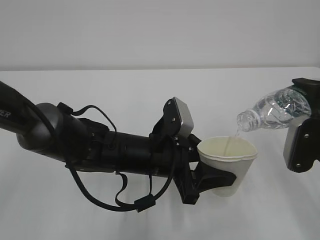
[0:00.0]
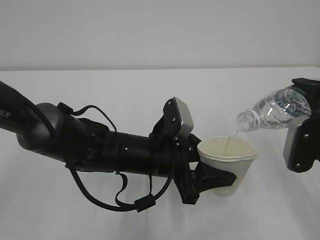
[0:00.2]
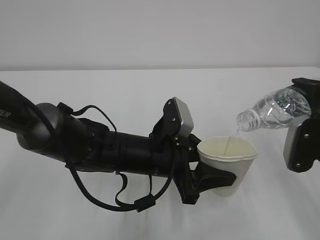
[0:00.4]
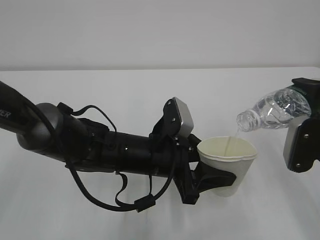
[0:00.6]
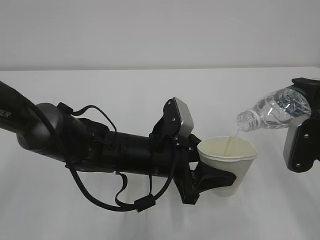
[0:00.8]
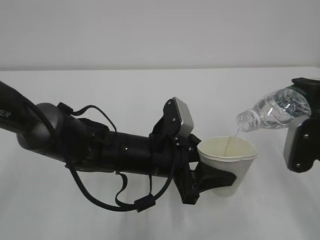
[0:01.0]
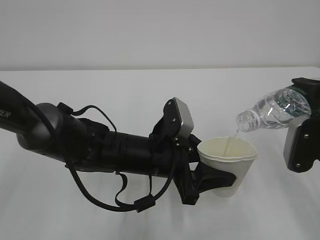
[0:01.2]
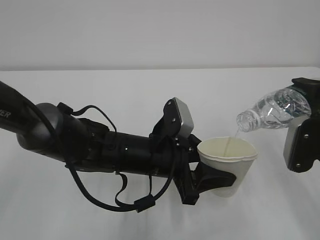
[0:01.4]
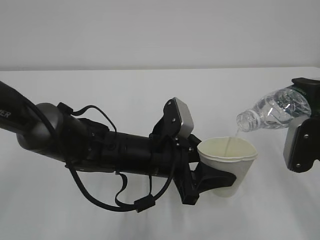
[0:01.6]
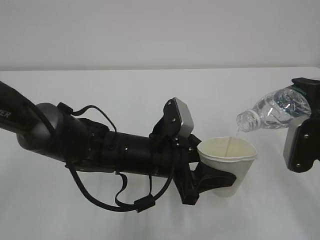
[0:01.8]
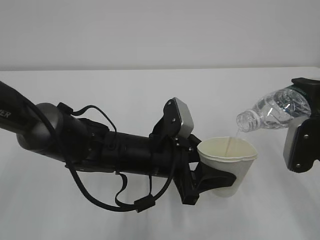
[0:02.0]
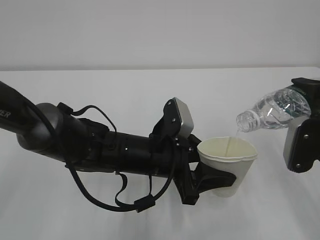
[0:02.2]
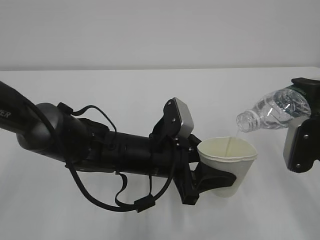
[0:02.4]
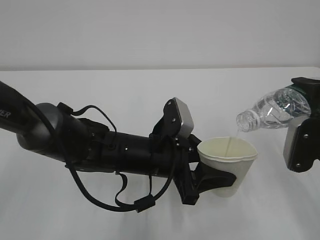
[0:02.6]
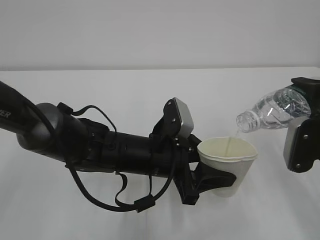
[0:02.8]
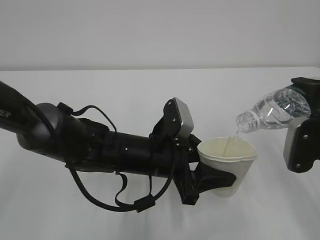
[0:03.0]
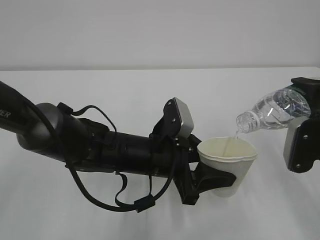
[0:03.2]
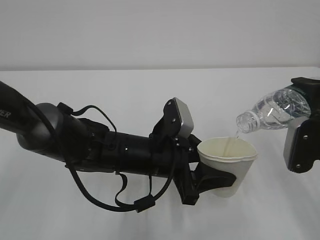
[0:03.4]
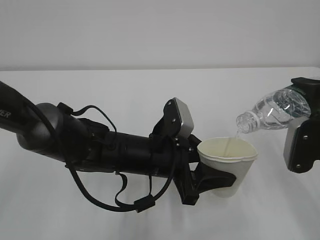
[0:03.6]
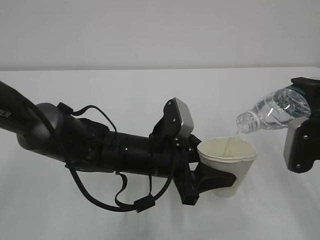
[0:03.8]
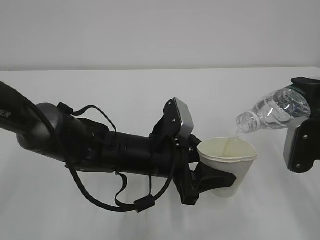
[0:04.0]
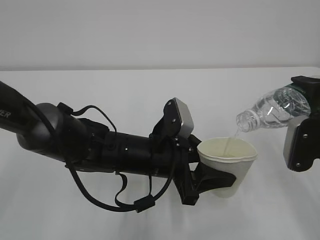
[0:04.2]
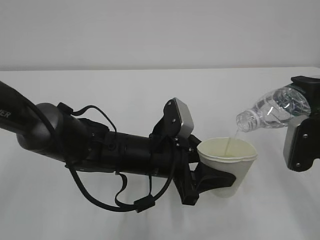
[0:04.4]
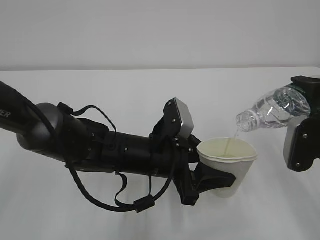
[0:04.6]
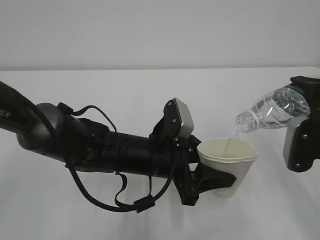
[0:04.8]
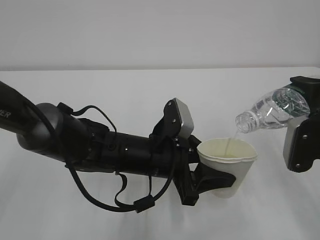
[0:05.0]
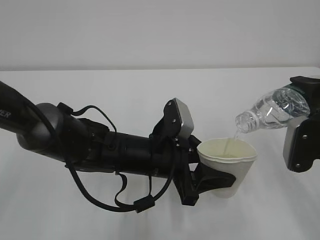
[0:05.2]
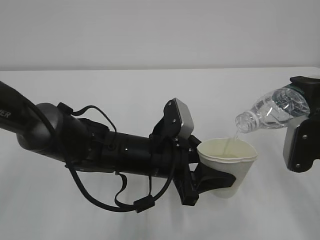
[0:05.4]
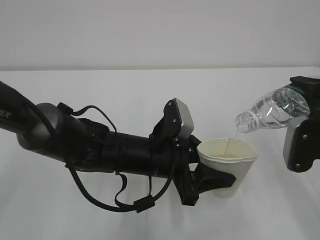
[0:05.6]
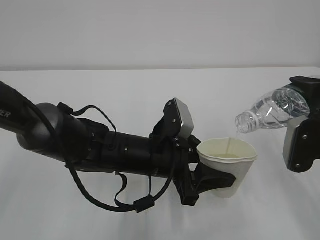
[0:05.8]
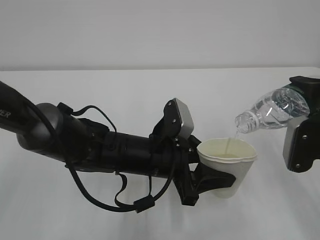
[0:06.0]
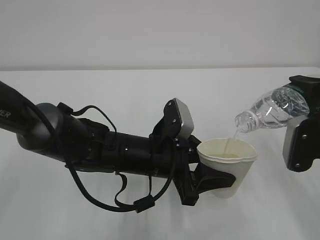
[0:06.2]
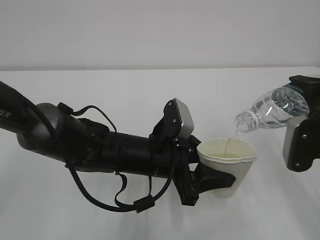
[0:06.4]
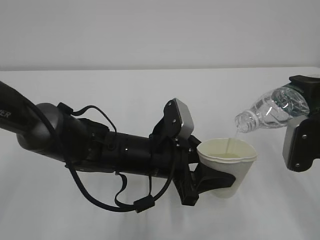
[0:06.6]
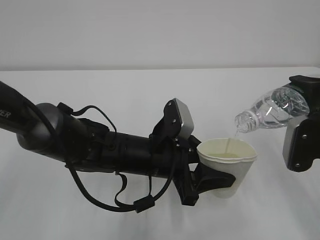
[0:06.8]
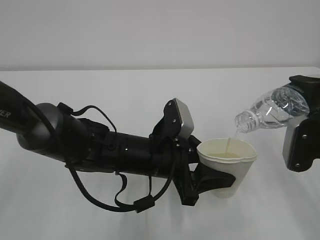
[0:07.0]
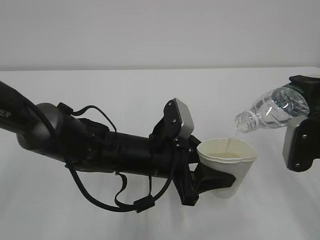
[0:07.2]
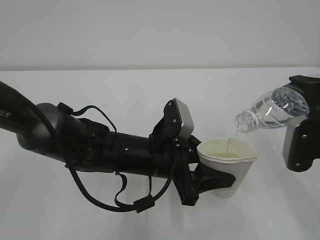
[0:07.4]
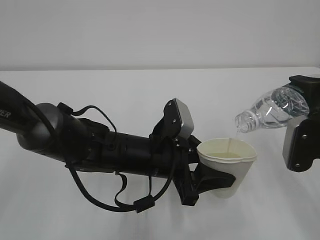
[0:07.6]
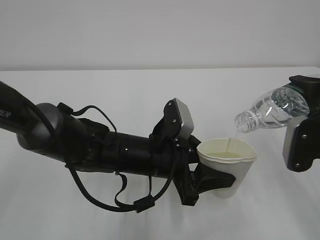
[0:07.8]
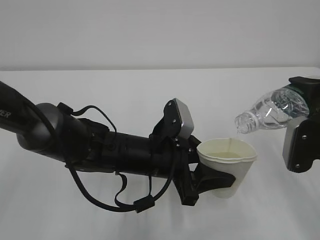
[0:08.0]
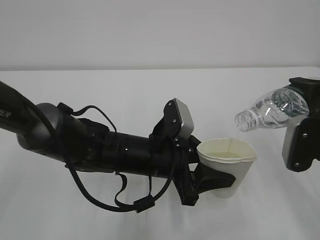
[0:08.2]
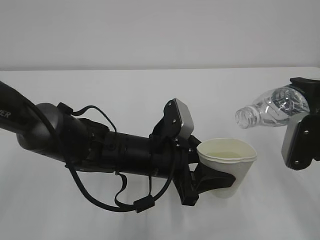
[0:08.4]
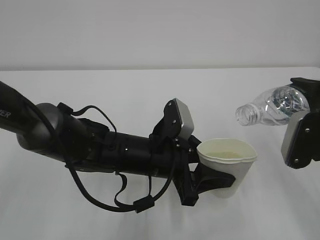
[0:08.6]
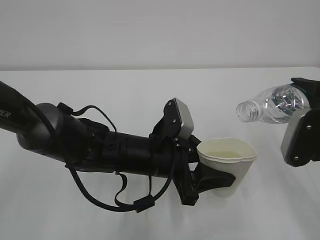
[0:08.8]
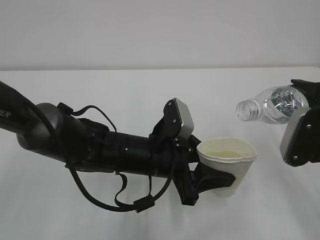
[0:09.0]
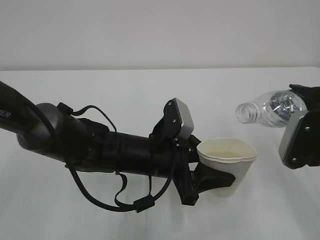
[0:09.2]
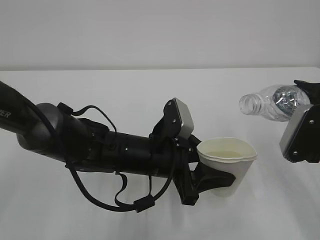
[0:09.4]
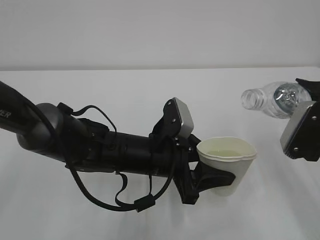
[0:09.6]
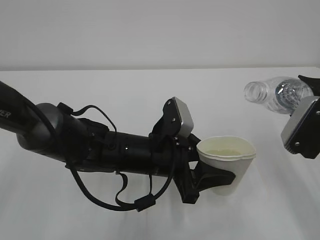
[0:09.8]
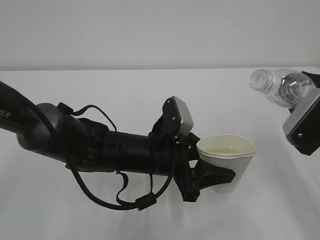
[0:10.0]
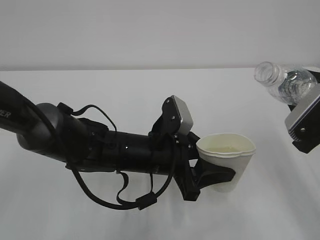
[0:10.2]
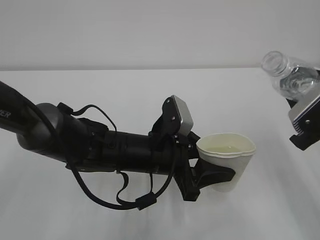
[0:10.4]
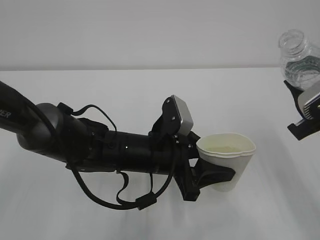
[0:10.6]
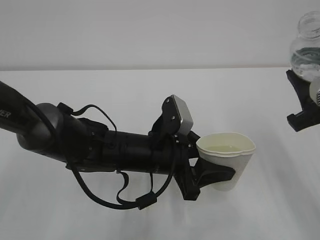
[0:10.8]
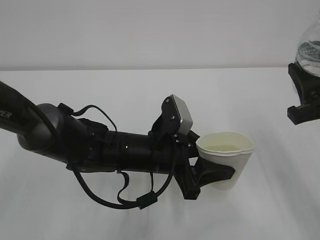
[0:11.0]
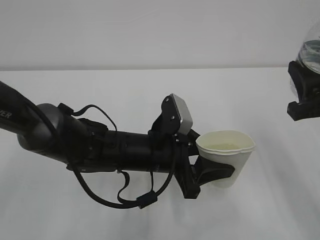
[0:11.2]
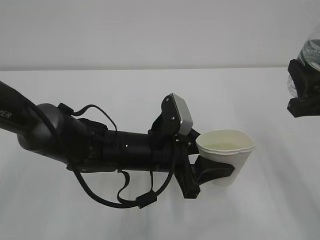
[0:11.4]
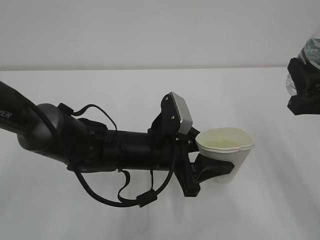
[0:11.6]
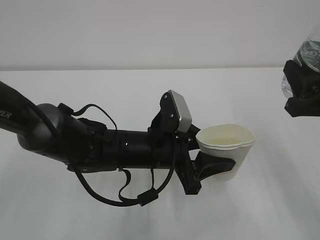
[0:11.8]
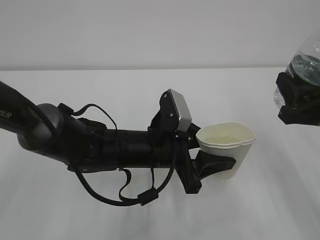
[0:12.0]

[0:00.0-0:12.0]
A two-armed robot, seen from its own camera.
0:00.0 to 0:07.6: The two grippers keep their place.
0:07.6 to 0:09.0: There are only small adjustments of the grippers.

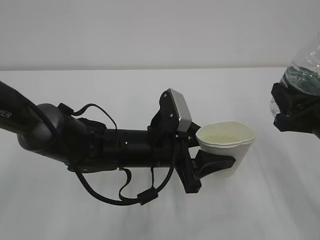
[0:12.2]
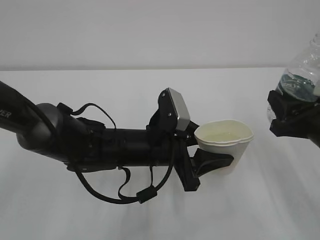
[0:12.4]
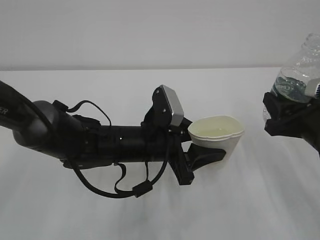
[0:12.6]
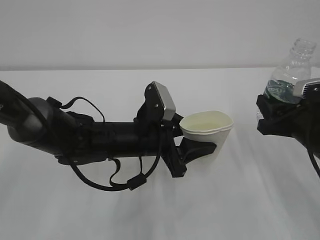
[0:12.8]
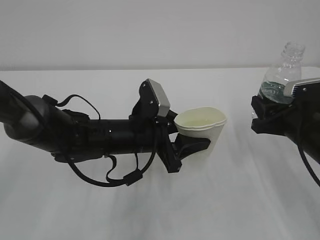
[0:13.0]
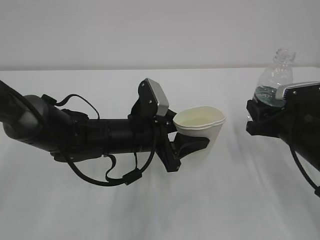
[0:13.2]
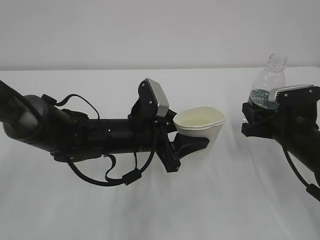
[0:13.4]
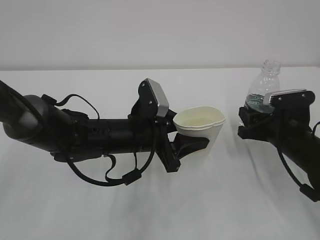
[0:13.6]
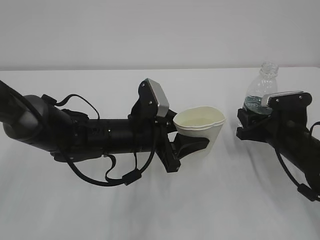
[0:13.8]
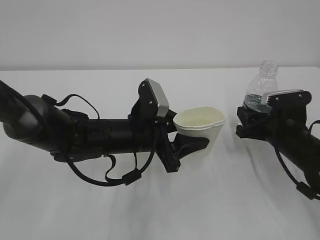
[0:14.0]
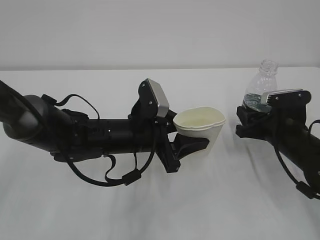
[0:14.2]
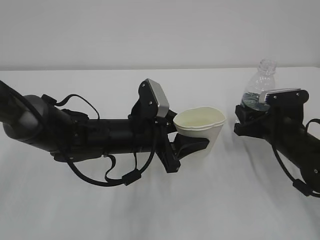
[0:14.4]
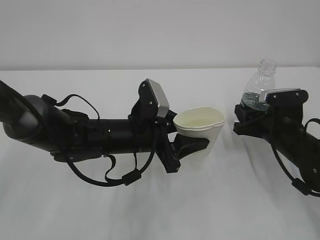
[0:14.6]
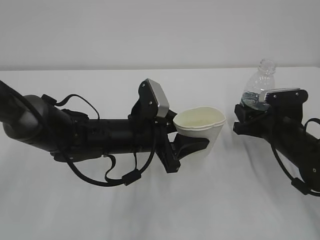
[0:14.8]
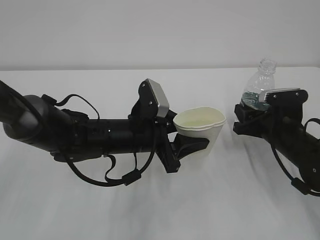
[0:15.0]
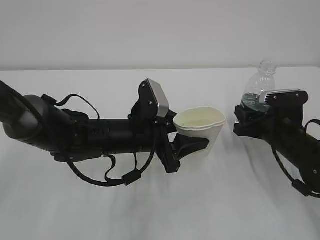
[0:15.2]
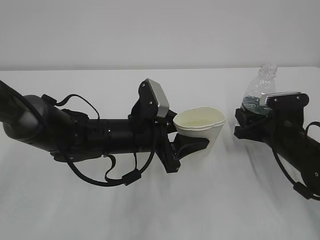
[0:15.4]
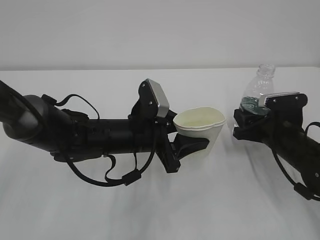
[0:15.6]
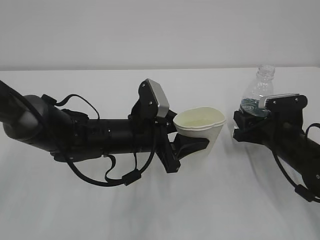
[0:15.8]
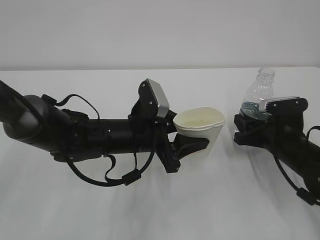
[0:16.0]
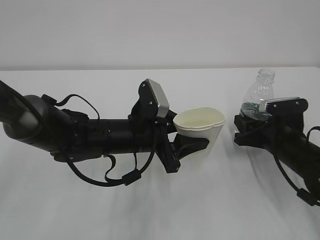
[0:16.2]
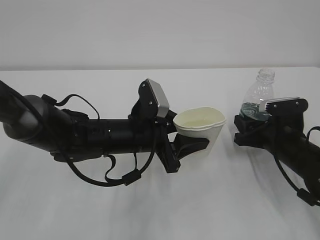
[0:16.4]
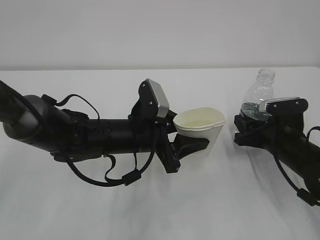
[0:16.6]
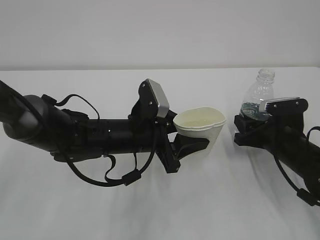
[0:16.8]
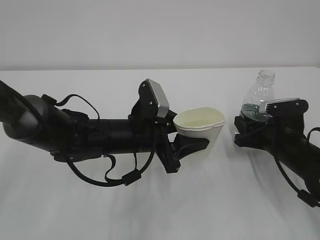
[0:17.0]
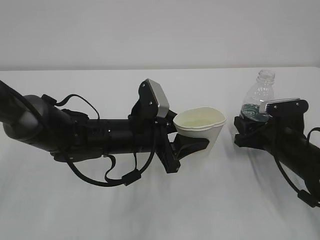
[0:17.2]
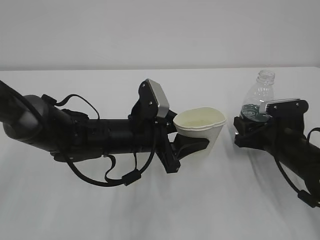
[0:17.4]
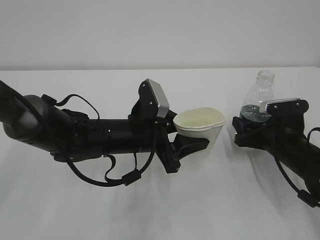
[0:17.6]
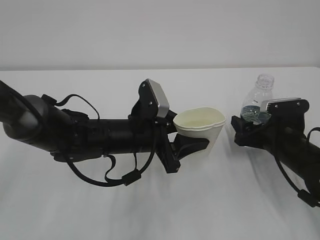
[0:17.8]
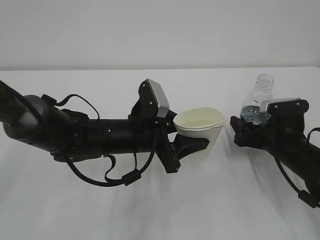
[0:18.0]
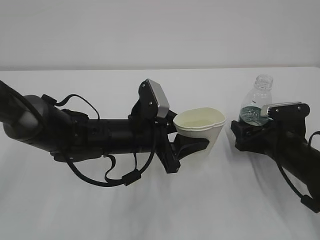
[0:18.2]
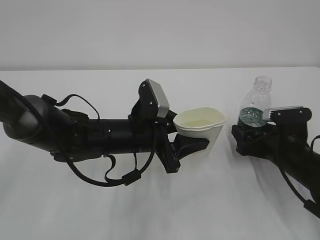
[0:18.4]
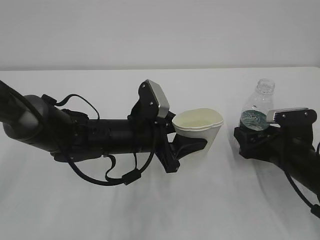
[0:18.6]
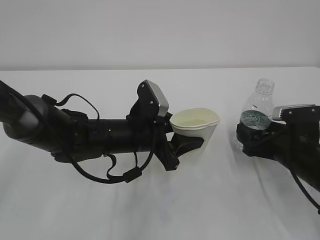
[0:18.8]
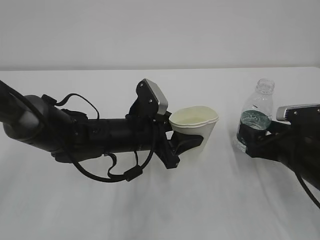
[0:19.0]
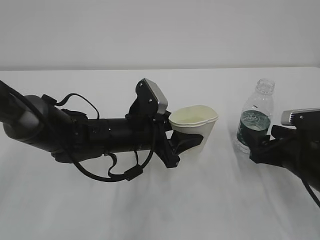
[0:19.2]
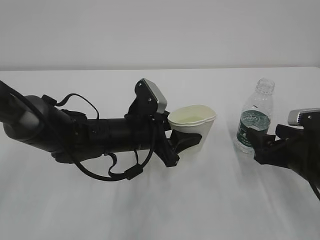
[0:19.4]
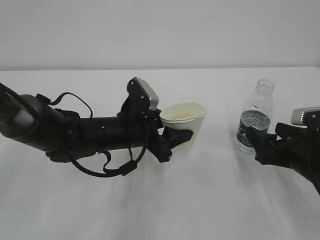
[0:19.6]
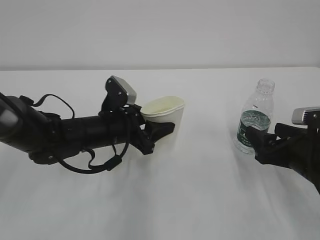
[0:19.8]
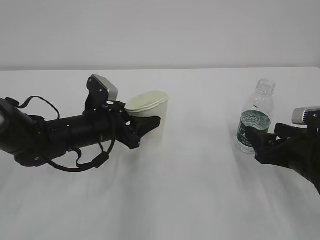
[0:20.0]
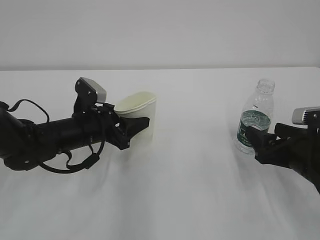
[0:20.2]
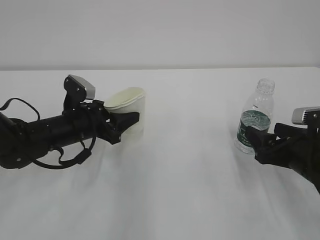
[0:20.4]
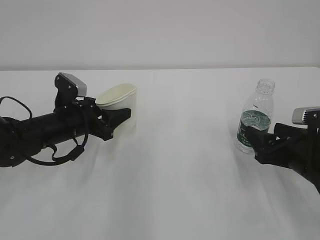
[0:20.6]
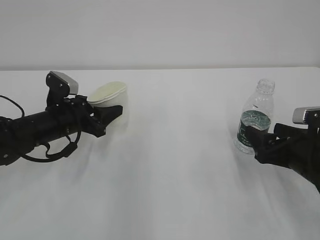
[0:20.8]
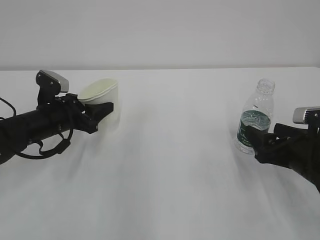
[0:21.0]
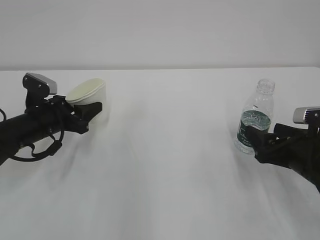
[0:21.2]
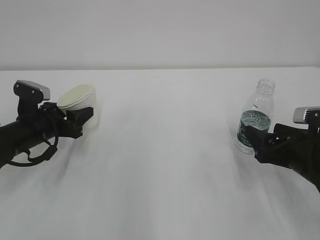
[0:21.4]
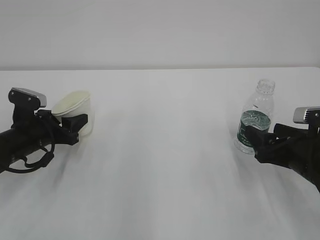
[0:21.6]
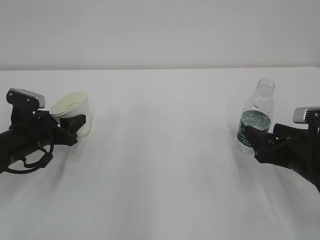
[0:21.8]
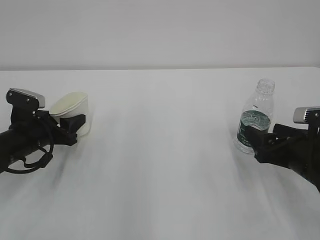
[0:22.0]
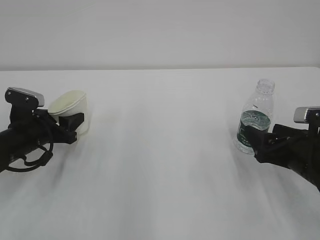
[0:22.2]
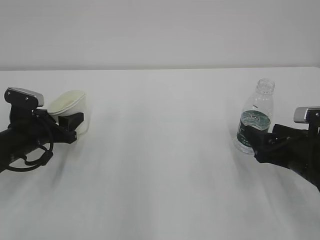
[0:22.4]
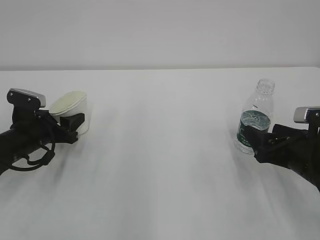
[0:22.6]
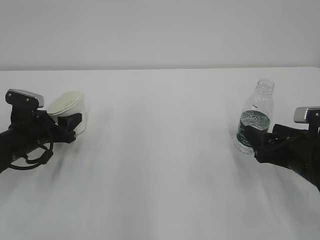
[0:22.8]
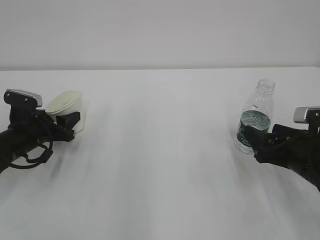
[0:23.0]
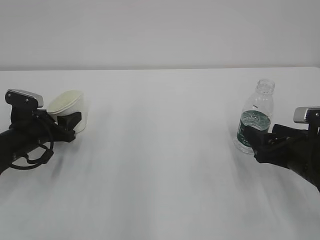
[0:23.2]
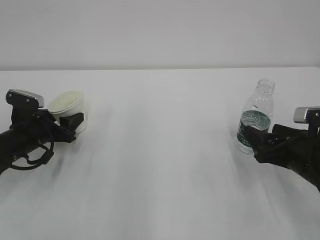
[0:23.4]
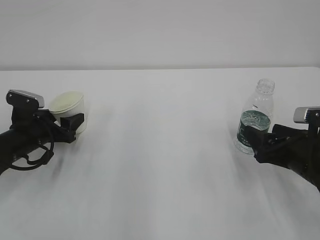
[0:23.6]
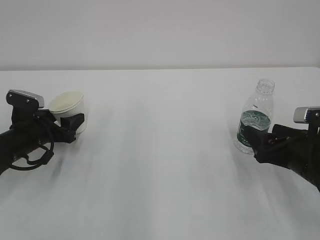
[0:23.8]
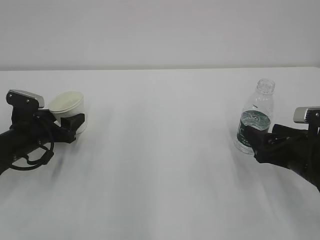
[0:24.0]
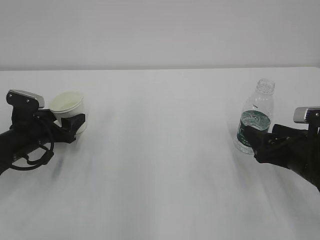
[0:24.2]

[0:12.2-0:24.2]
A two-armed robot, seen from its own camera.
0:12.2 to 0:13.8: The right gripper goes roughly 15 cm downward and forward.
0:13.8 to 0:15.2: Both grippers stay put.
0:15.2 to 0:16.6: The grippers make only small movements.
0:16.6 to 0:18.2: The right gripper opens its fingers.
0:18.2 to 0:19.8: The right gripper moves backward, about 5 cm; the left gripper travels to the left by approximately 5 cm.
0:19.8 to 0:21.2: The left gripper goes roughly 15 cm to the left.
0:21.2 to 0:22.6: The grippers move only a little.
0:22.6 to 0:24.2: The left gripper opens.
